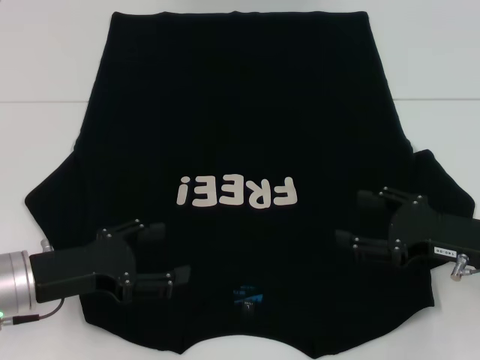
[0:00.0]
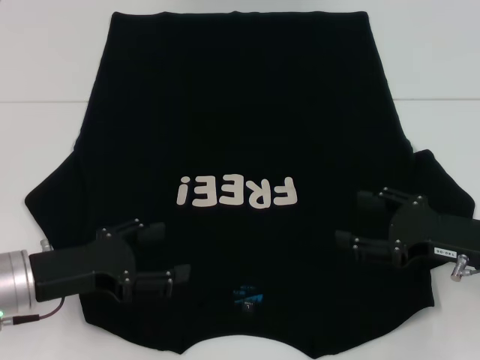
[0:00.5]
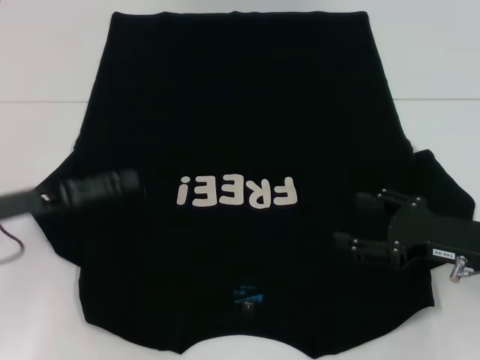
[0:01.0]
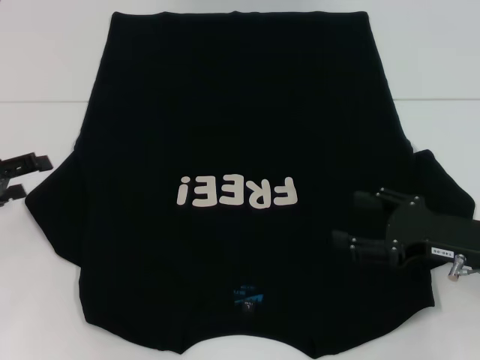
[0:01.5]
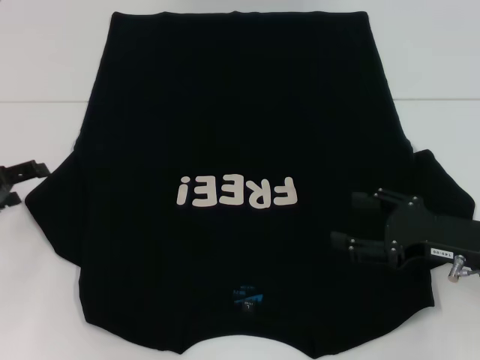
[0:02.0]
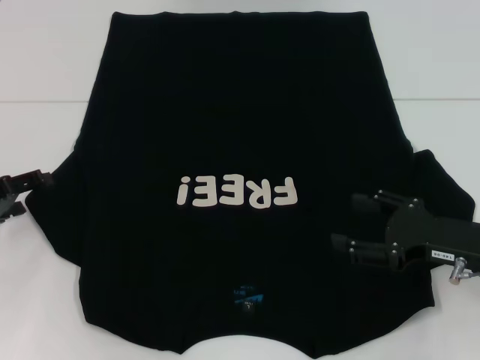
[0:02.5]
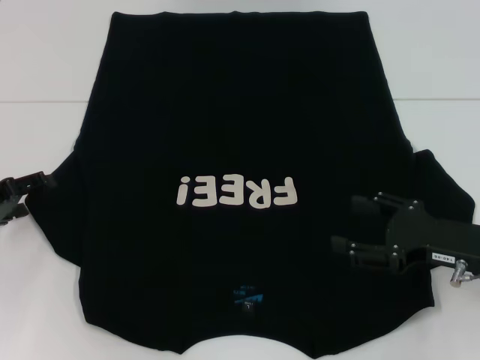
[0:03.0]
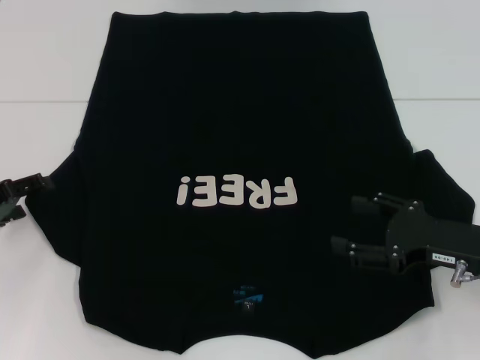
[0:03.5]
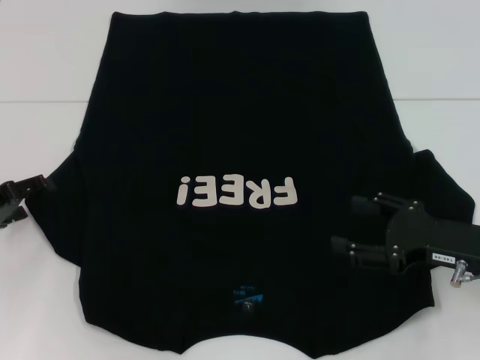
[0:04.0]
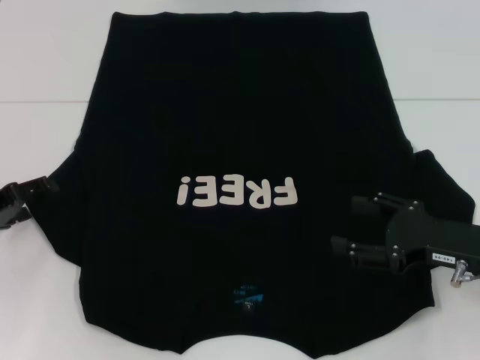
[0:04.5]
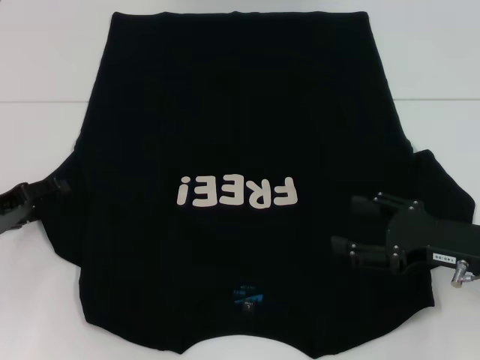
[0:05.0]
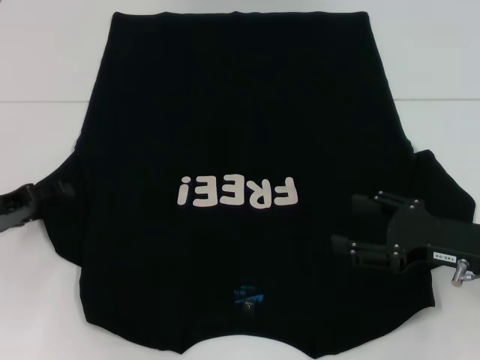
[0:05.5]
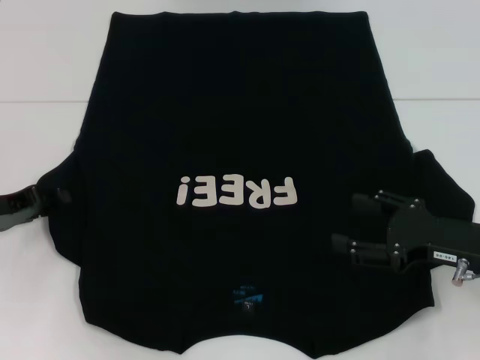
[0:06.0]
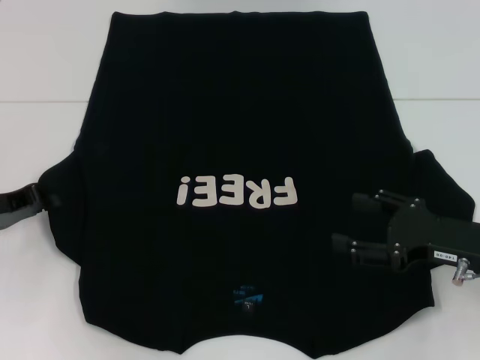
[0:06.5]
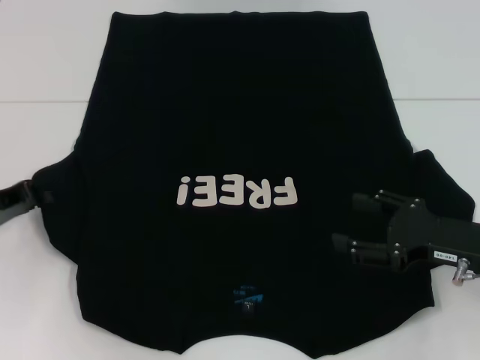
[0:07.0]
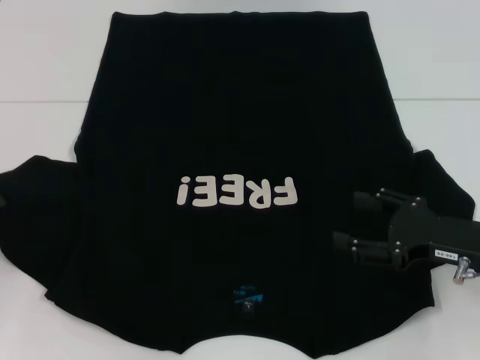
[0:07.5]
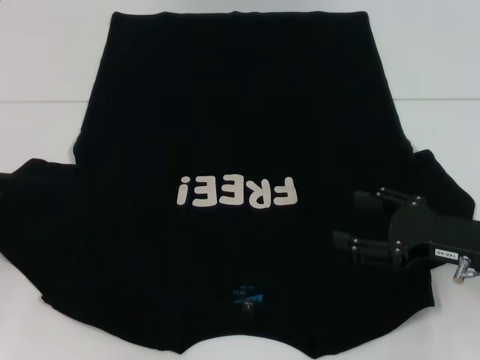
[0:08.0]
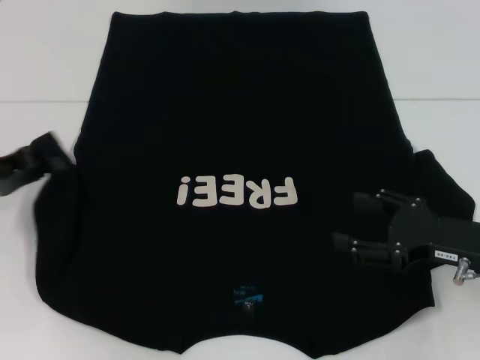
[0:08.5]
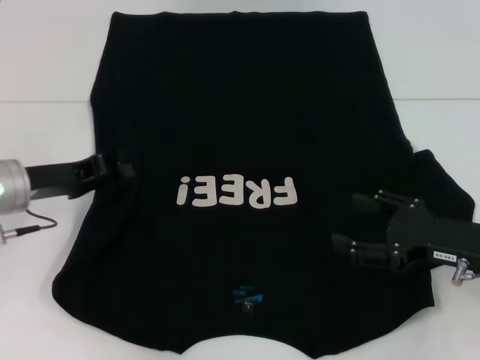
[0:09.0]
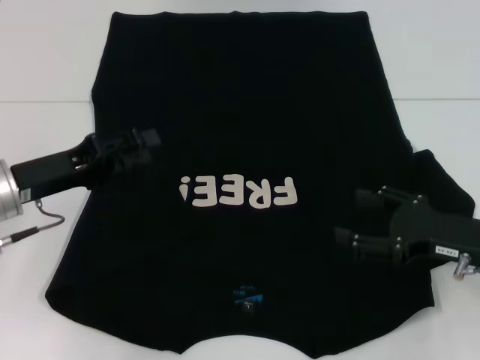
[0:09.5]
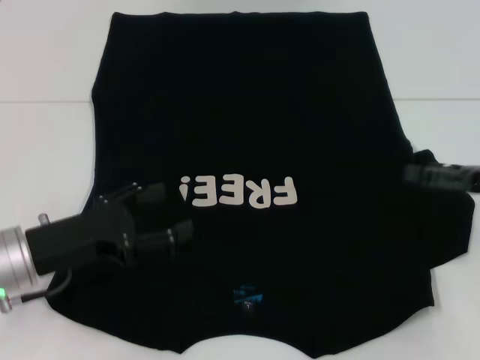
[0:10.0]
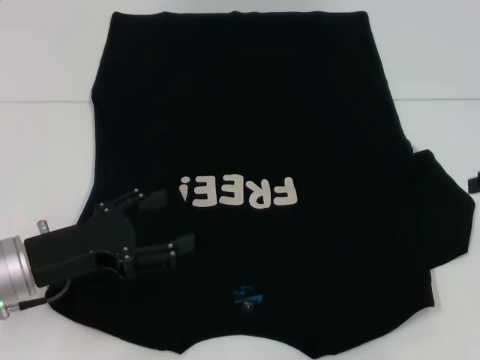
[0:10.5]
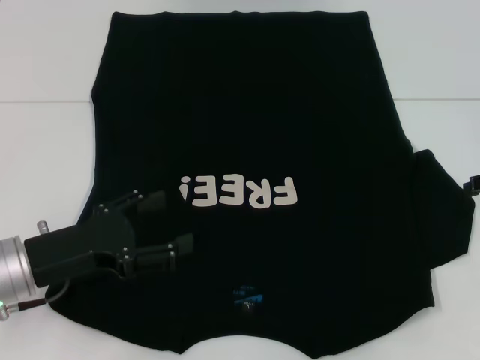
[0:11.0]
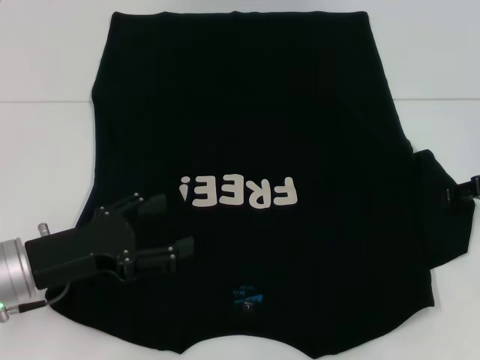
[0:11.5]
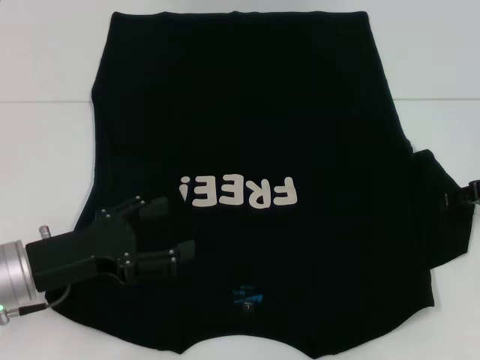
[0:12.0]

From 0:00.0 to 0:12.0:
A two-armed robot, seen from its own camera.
Step, from 0:00.0 to 0:09.5: Fold the bottom left sleeve with your left hand.
From 0:00.0 to 0:02.0: The left gripper is displaced to the left and forward by roughly 15 cm.
From 0:02.0 to 0:06.0: There are only small adjustments of the grippers.
From 0:06.0 to 0:08.0: The left gripper is displaced to the left by about 5 cm, and closes its fingers.
From 0:08.0 to 0:10.0: The left gripper is displaced to the right by roughly 15 cm, and opens its fingers; the right gripper travels to the right by approximately 5 cm.
From 0:10.0 to 0:12.0: The right gripper is displaced forward by about 5 cm.

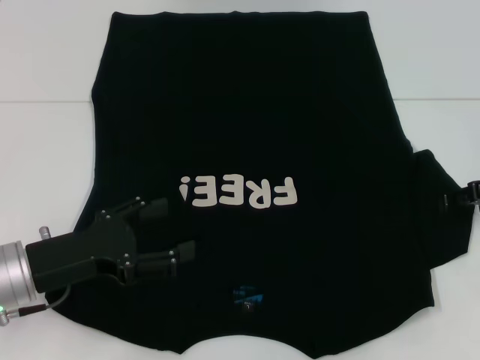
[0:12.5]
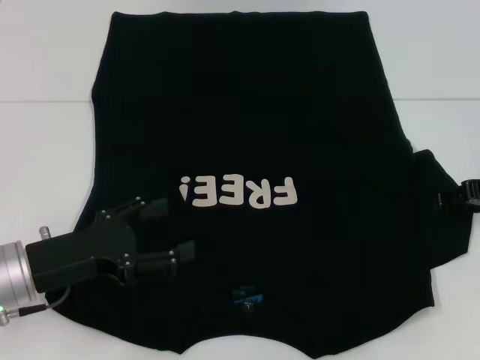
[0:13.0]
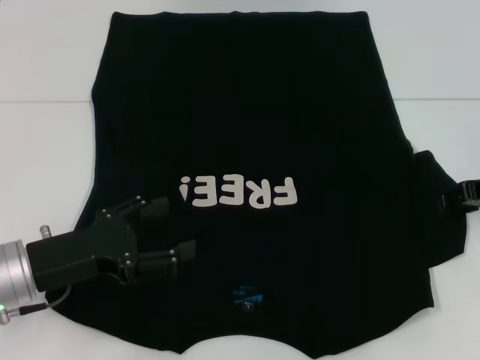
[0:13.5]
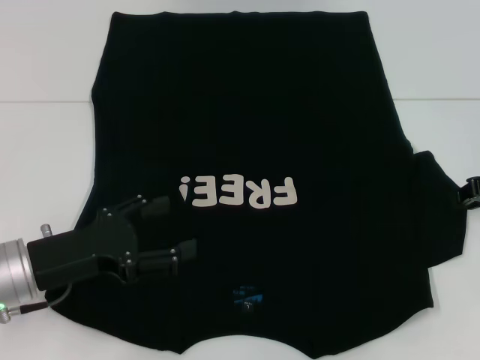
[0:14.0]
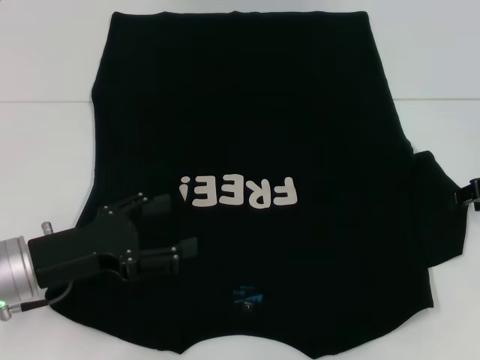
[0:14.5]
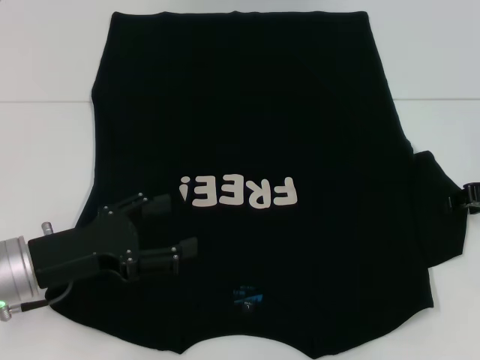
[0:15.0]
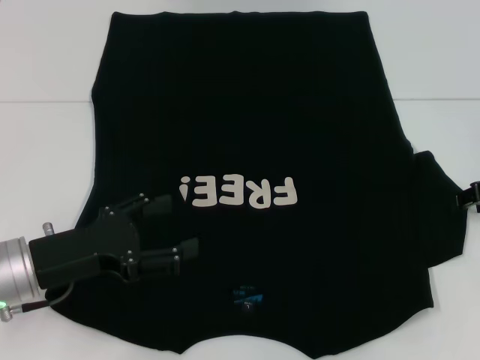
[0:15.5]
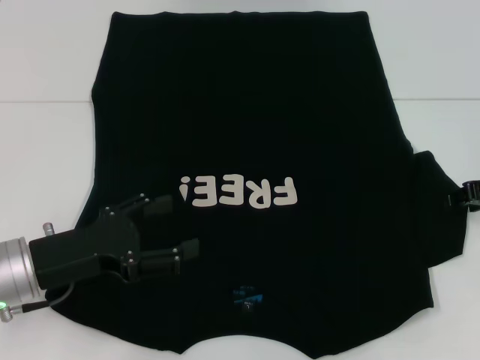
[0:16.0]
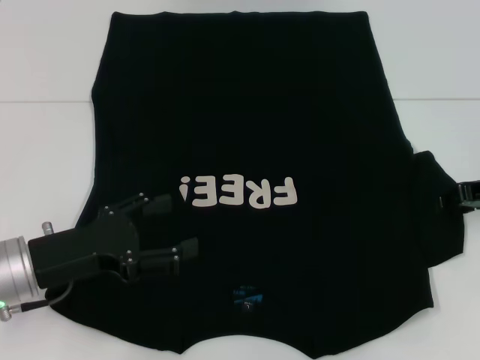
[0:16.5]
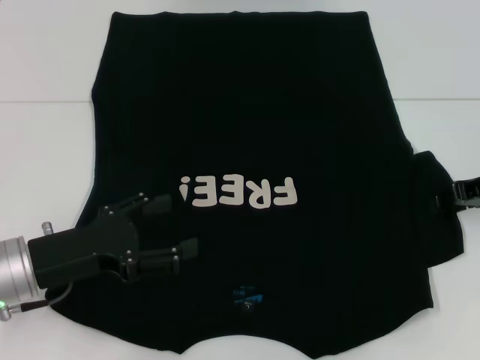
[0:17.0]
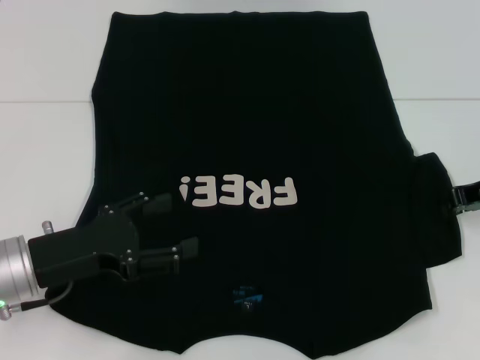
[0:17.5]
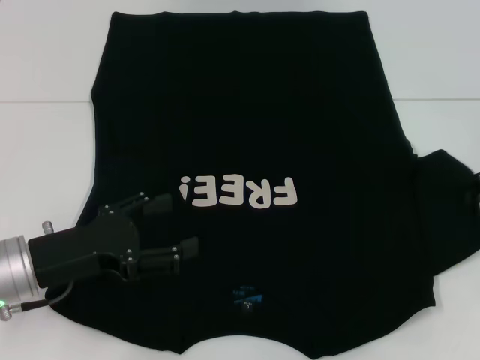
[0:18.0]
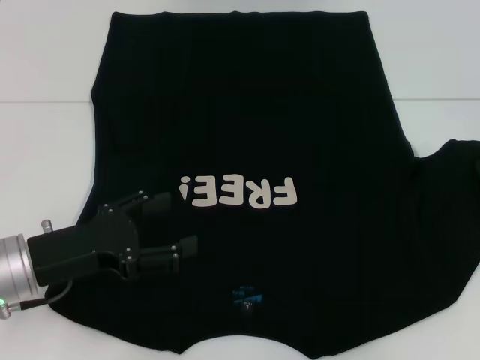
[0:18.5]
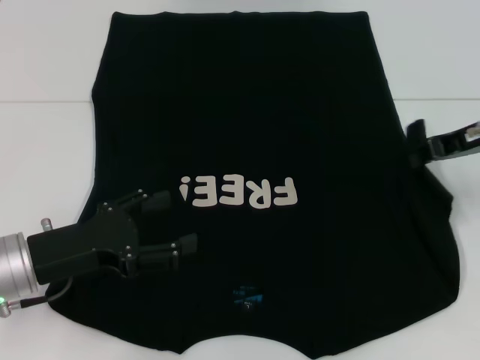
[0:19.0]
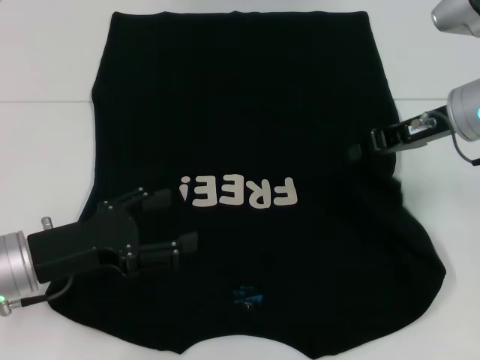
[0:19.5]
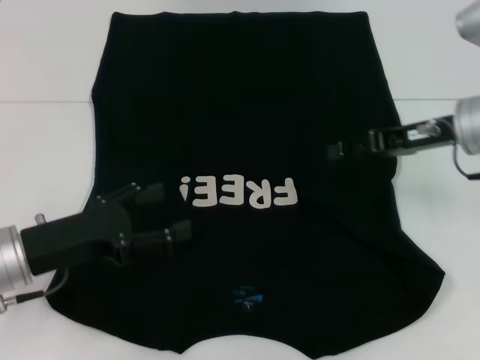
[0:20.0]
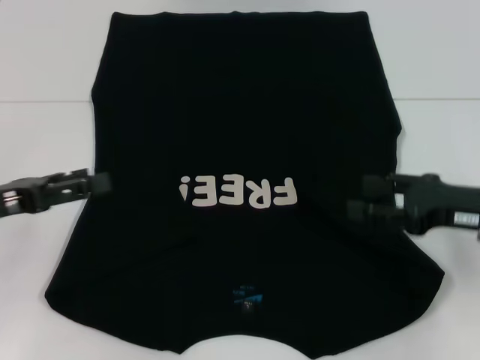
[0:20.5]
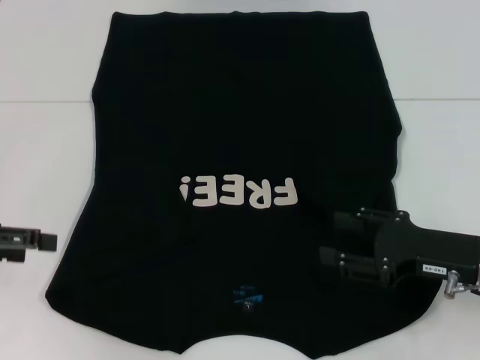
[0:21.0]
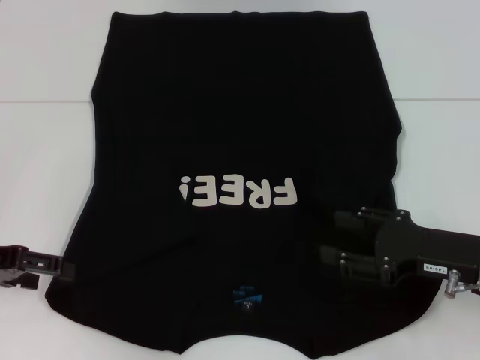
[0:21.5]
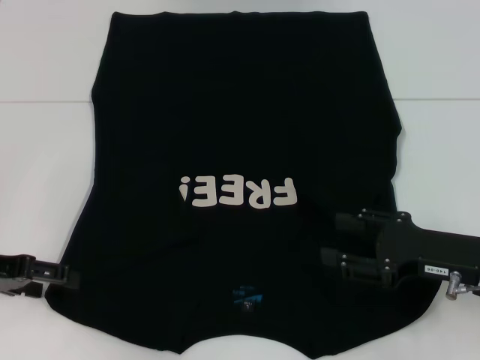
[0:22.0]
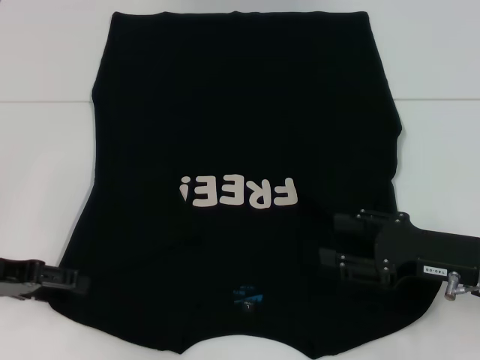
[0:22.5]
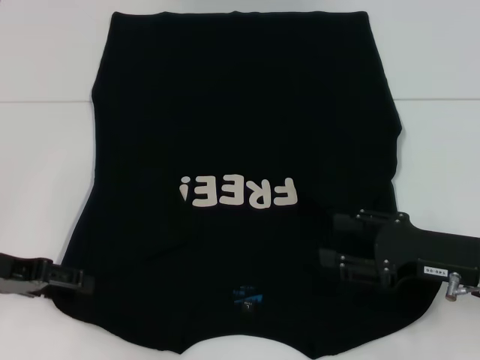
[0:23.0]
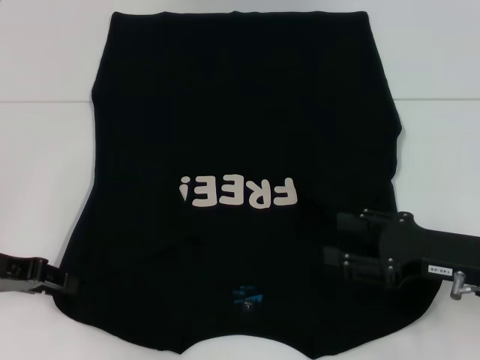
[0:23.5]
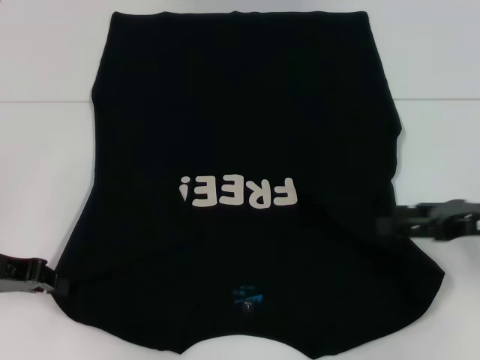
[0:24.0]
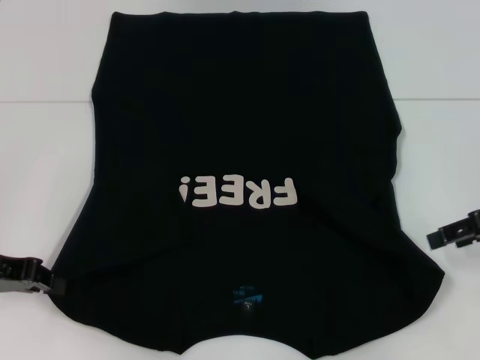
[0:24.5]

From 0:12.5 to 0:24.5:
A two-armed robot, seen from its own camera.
Step, from 0:12.5 to 0:19.5: Fold the bottom right sleeve with your right hand.
Step, from 0:20.0 to 0:24.0: Grab the bottom left corner with your left hand.
From 0:12.5 to 0:14.5: The right gripper closes.
From 0:16.5 to 0:18.5: The right gripper moves approximately 5 cm, and closes up.
From 0:18.5 to 0:20.5: The right gripper goes some 10 cm backward, to the left and downward, and opens; the left gripper goes about 10 cm to the left.
From 0:20.5 to 0:22.5: The right gripper ends up approximately 5 cm from where it was.
From 0:22.5 to 0:24.5: The left gripper closes its fingers. Meanwhile the right gripper goes about 10 cm upward, to the right and forward.

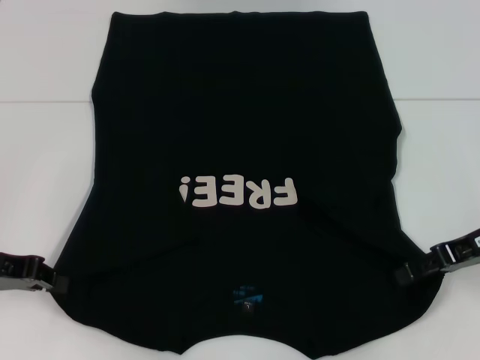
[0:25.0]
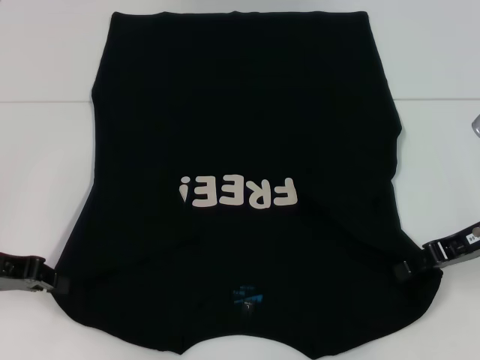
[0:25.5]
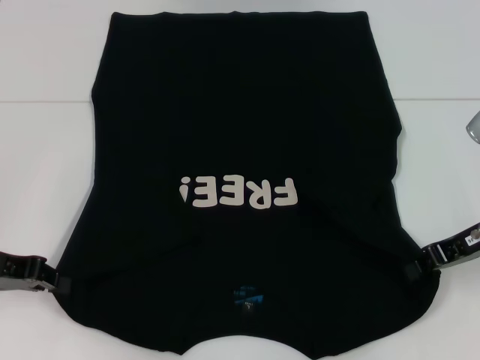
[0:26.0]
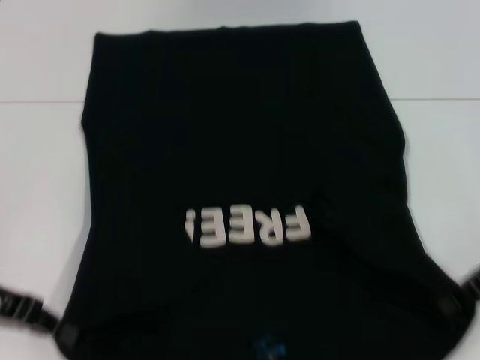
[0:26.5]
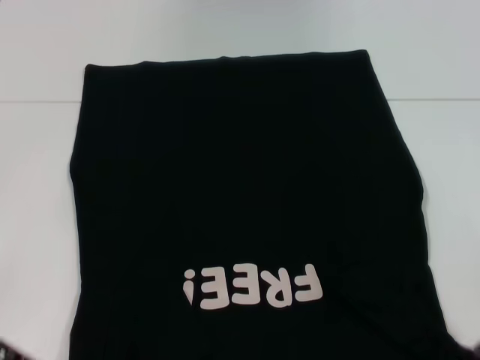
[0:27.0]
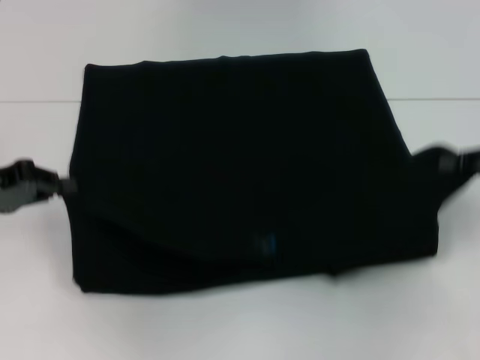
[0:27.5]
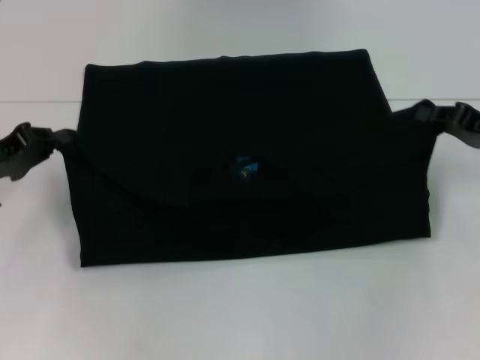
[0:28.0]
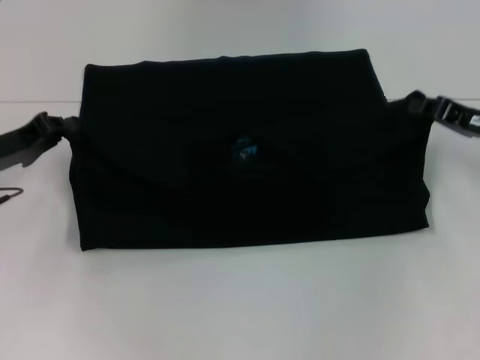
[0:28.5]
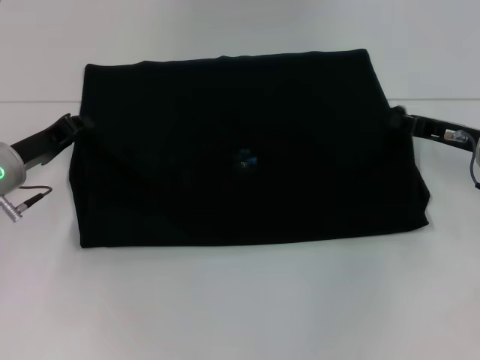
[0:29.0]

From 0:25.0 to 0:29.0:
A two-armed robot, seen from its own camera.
Step, from 0:25.0 to 0:26.5: Grab the bottom right corner with your right hand.
From 0:25.0 to 0:27.0: The left gripper ends up roughly 5 cm from where it was, while the right gripper moves backward, roughly 5 cm, and closes up.
From 0:27.0 to 0:29.0: Both grippers move forward, about 10 cm.
